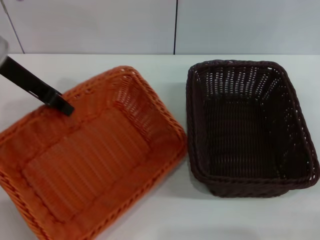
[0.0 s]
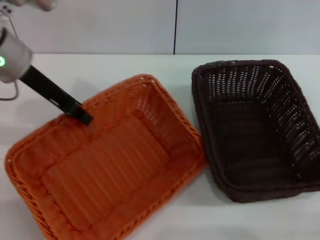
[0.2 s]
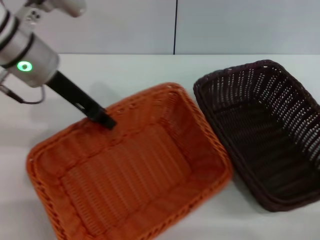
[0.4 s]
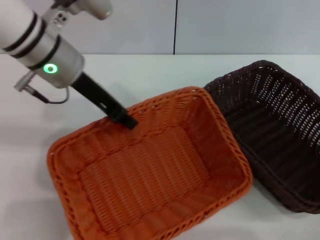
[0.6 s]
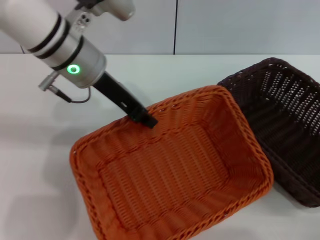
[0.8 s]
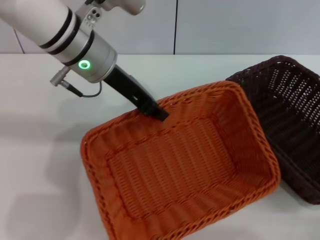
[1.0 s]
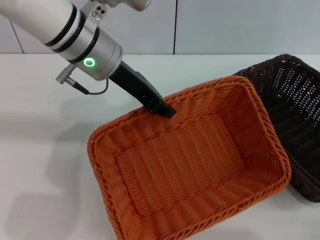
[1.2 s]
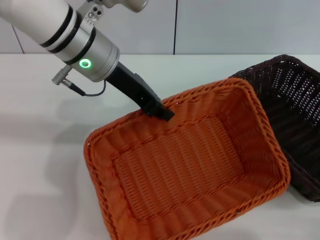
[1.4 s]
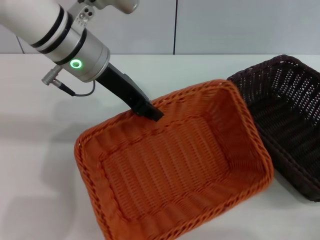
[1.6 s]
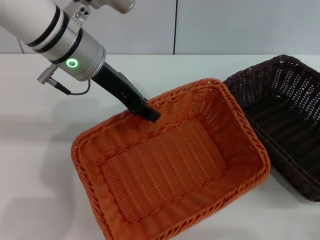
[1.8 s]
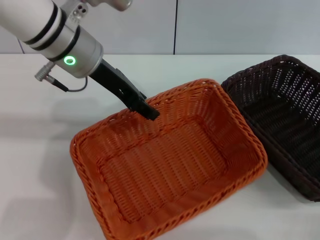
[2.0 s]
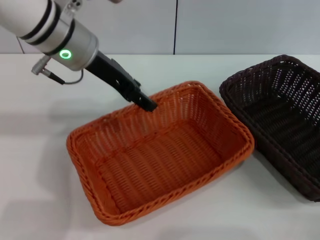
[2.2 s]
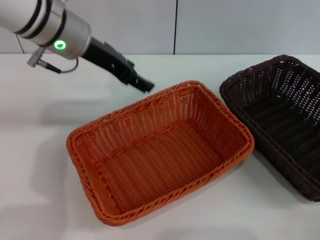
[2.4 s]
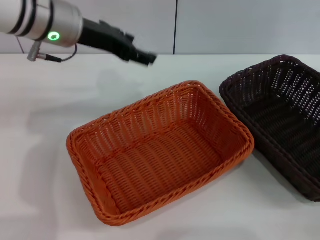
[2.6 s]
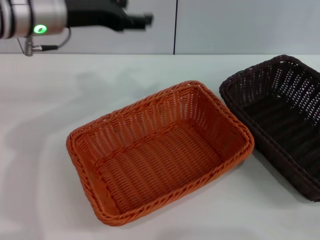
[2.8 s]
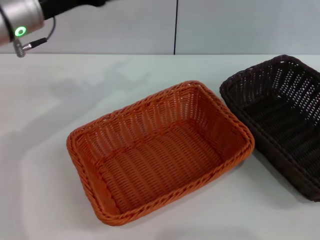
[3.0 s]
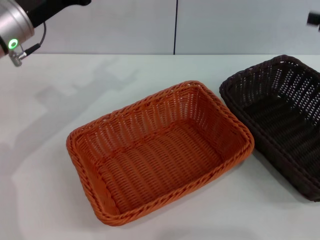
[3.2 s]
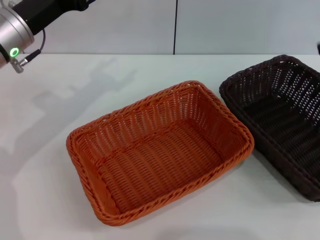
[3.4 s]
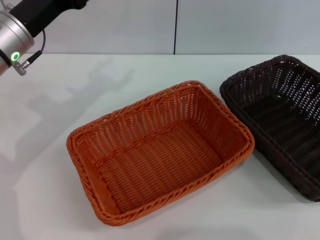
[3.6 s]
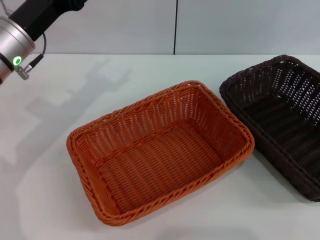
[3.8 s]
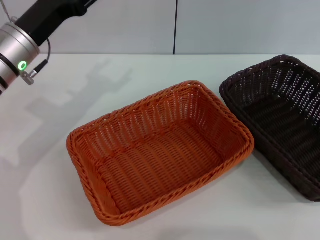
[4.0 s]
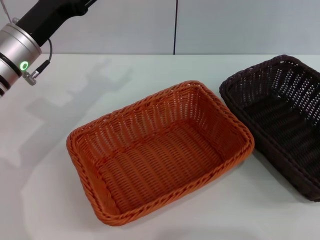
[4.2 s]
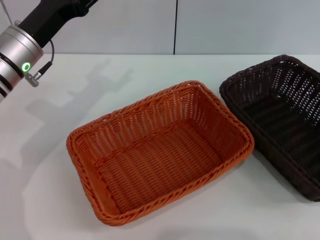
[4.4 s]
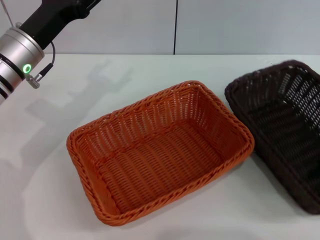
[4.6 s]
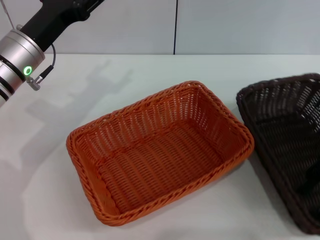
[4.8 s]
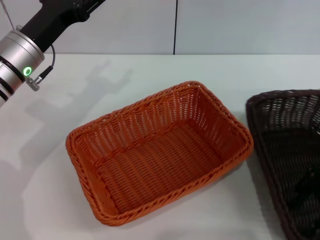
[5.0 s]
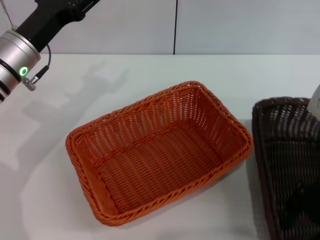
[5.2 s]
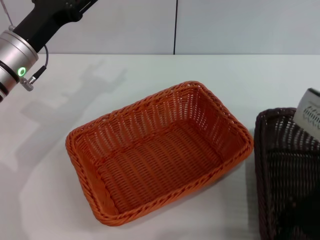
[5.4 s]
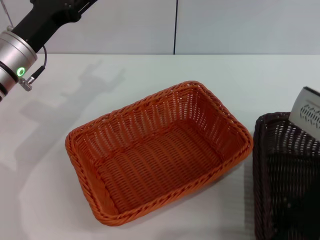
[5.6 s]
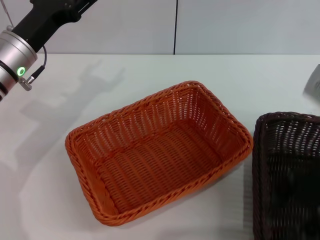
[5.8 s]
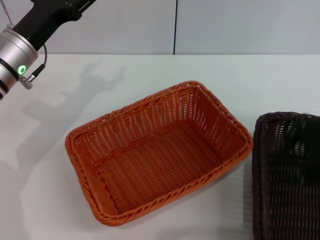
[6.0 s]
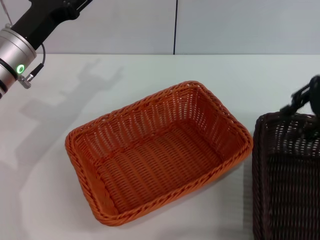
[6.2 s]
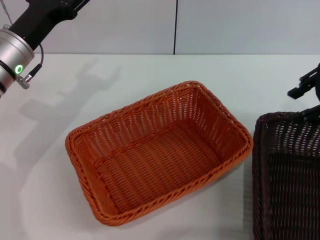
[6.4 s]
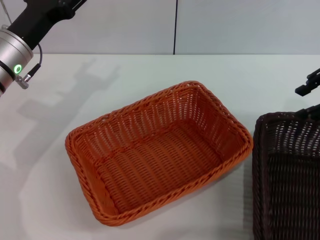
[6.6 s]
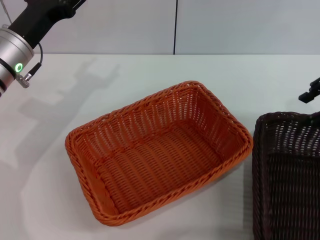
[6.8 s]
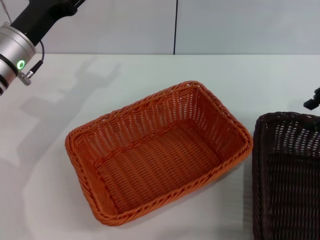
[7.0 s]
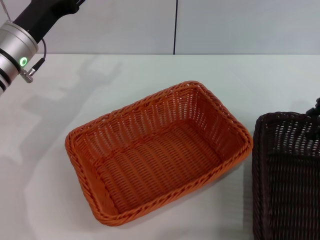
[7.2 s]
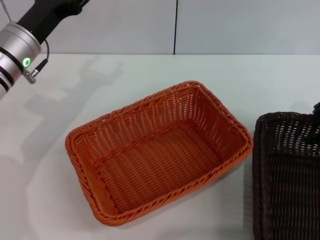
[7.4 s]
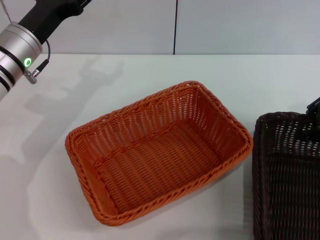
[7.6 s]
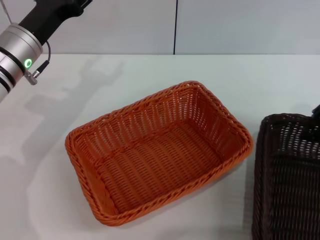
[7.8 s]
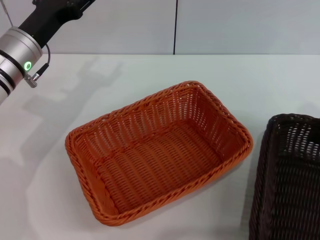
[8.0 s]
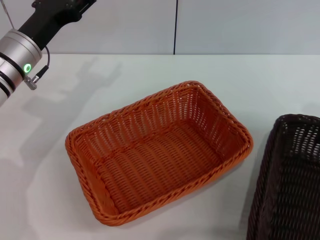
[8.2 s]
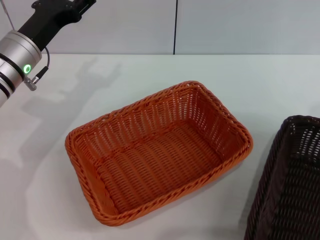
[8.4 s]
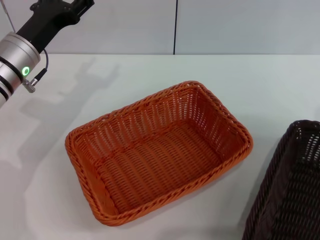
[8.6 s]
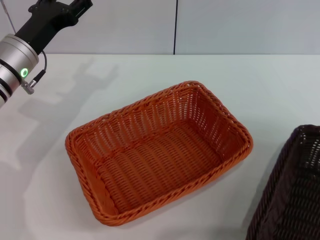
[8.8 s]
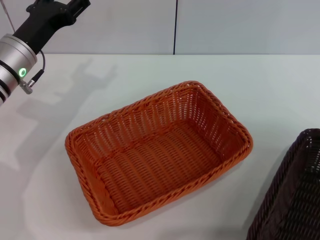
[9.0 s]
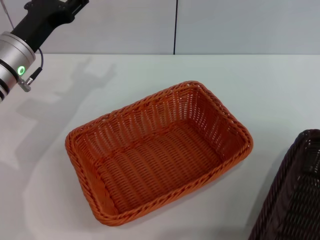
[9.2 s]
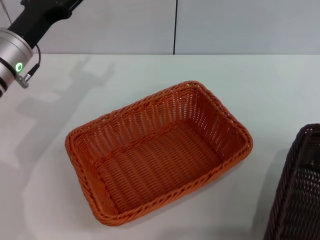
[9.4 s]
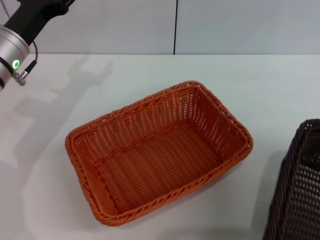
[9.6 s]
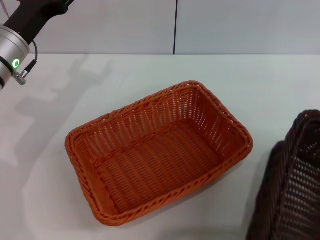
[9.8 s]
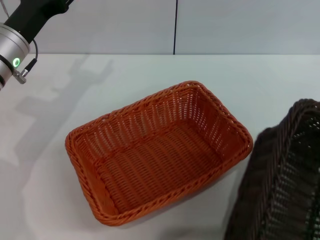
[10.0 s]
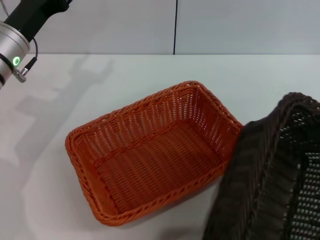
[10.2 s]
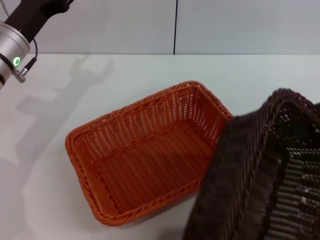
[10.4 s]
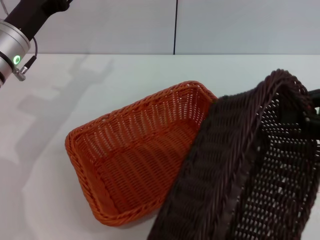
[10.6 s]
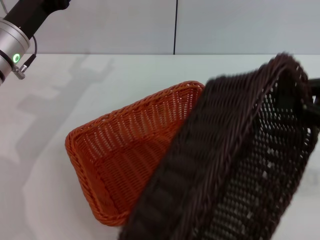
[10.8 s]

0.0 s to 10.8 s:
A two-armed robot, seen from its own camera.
Step, 0.0 to 2.0 s: Place the light basket in the center of view with the left gripper.
Step, 2.4 to 8.0 s: Pick up the dark basket with the right gripper.
0.0 to 1.6 s: The left gripper shifts approximately 15 cm to the right.
1.6 to 3.0 s: The right gripper travels upward by roughly 5 cm, while the left gripper shifts roughly 10 cm to the left, and opens up.
3.0 to 4.6 s: The right gripper heads to the left, covering some 5 cm, and travels upward and back again, some 10 cm each way. Meanwhile the left gripper moves downward, about 5 cm.
4.6 to 6.2 s: The right gripper heads upward, covering roughly 5 cm, and reaches approximately 10 cm to the left, then returns.
6.2 to 7.8 s: The right gripper heads downward, covering approximately 5 cm, and closes its fingers.
7.8 to 9.2 s: The right gripper is displaced to the right by some 5 cm, and closes up.
9.2 to 10.8 s: The right gripper moves to the left, roughly 5 cm.

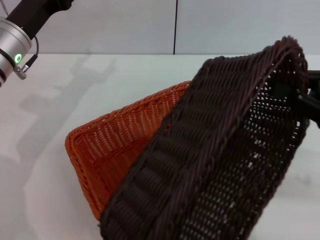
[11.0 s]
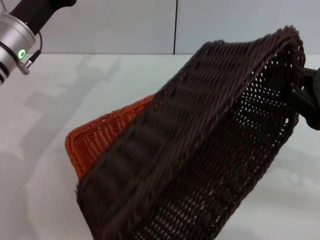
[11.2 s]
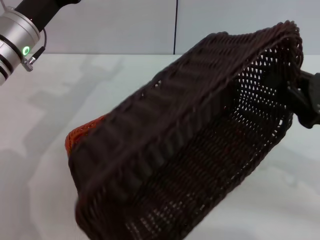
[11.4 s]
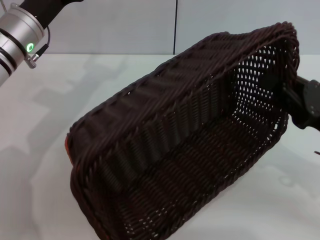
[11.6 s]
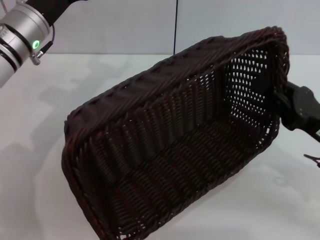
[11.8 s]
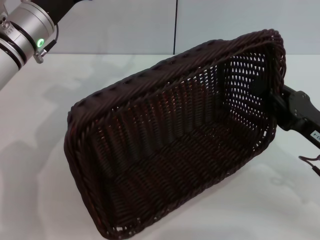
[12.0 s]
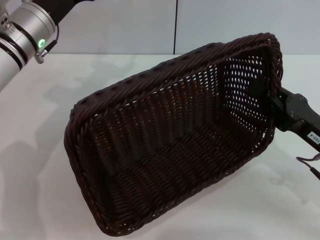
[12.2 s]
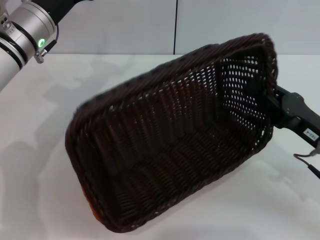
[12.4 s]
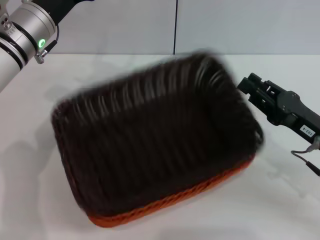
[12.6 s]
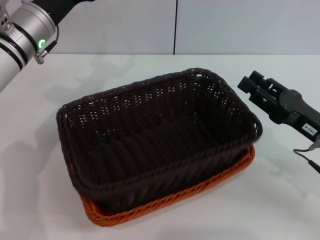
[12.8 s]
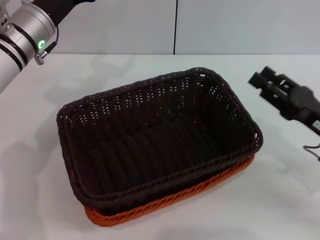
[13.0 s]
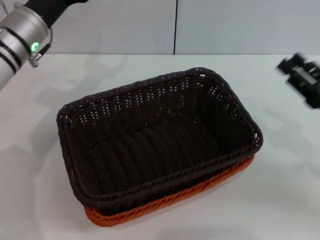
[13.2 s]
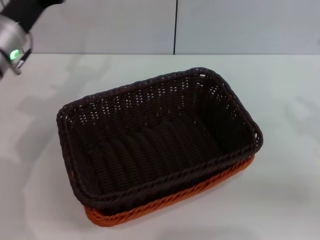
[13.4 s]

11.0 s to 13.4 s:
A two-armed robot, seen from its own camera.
11.0 to 12.2 s: The right gripper is displaced downward by about 5 cm.
12.2 to 13.4 s: The right gripper travels to the right by some 5 cm, and opens up.

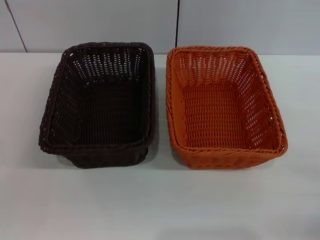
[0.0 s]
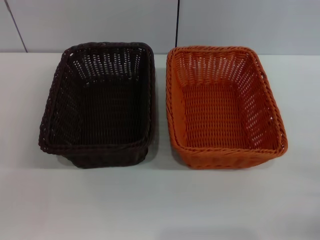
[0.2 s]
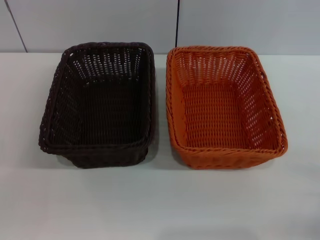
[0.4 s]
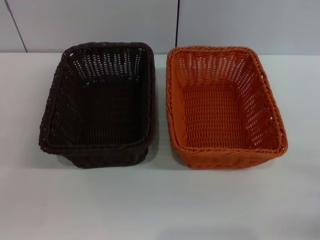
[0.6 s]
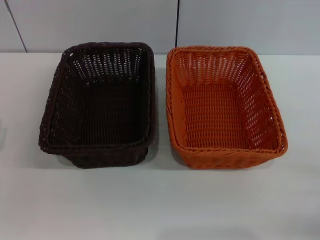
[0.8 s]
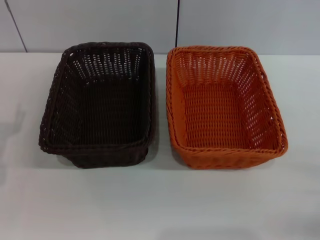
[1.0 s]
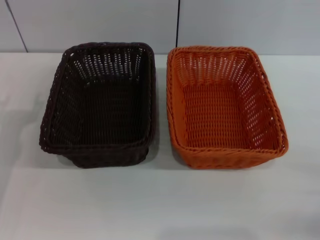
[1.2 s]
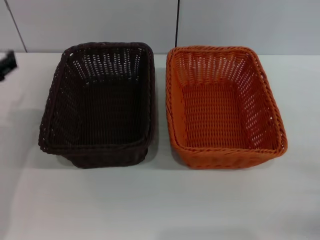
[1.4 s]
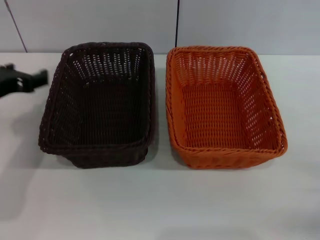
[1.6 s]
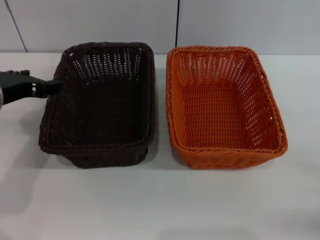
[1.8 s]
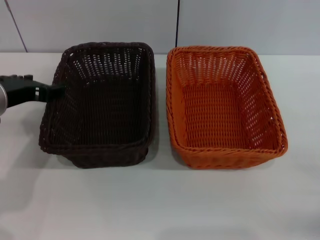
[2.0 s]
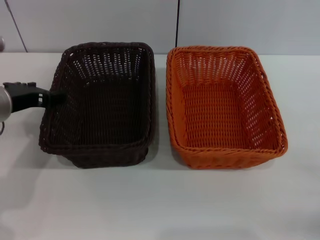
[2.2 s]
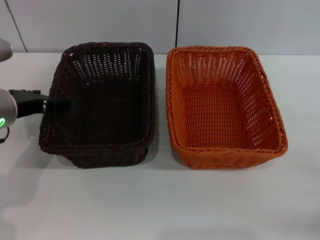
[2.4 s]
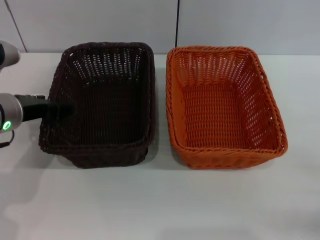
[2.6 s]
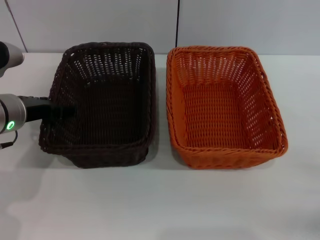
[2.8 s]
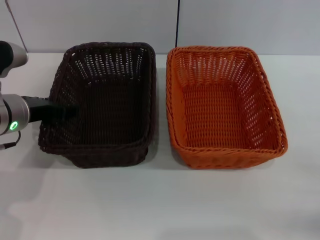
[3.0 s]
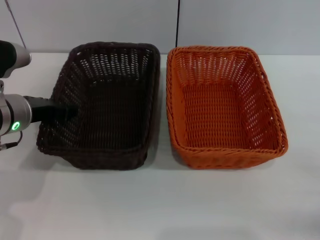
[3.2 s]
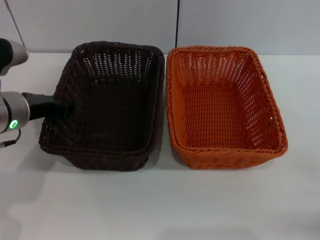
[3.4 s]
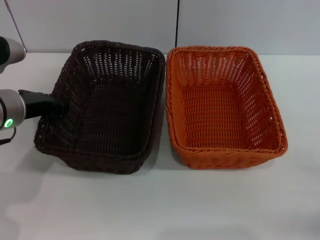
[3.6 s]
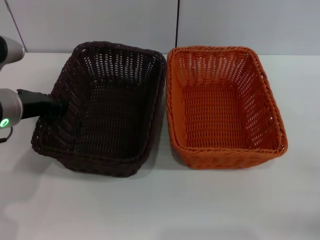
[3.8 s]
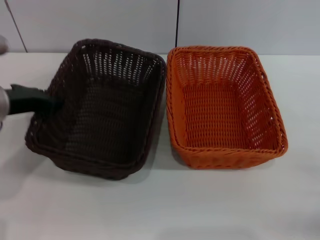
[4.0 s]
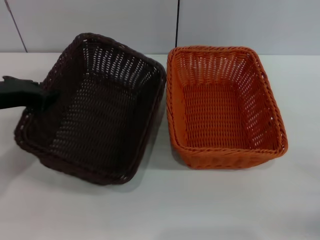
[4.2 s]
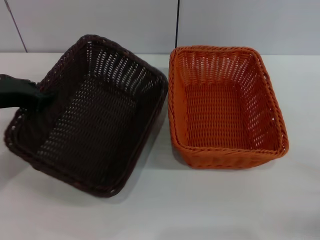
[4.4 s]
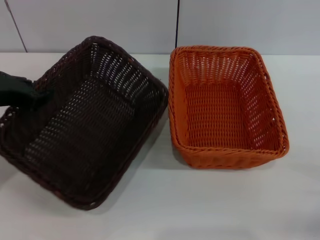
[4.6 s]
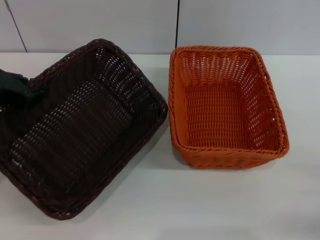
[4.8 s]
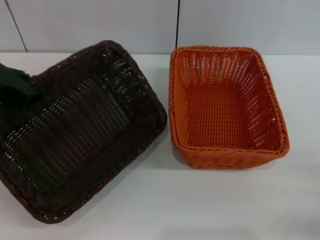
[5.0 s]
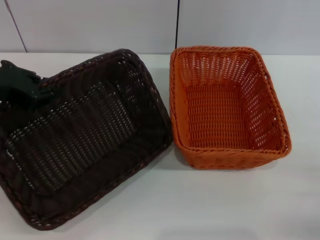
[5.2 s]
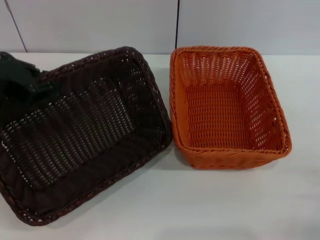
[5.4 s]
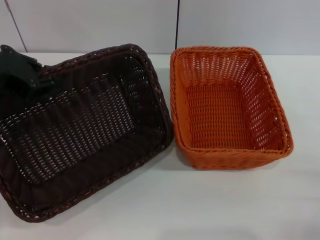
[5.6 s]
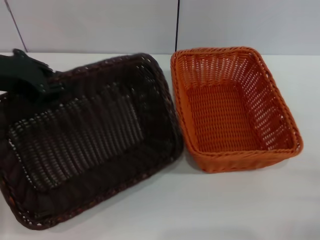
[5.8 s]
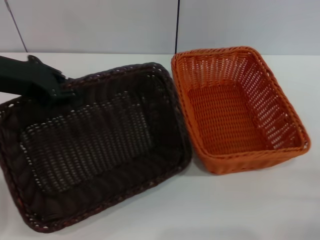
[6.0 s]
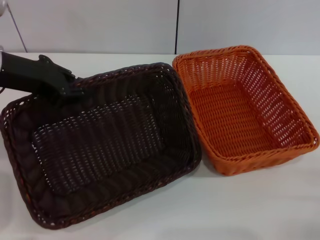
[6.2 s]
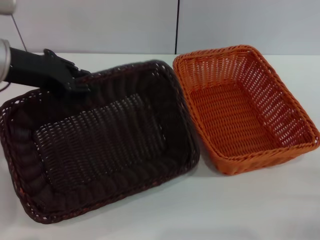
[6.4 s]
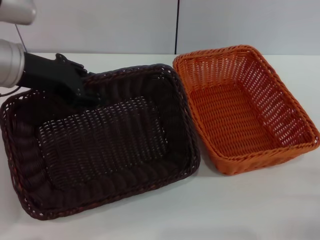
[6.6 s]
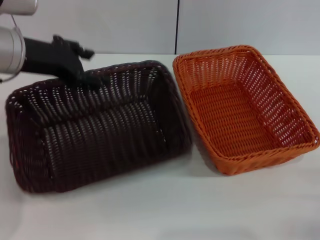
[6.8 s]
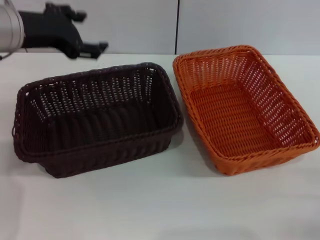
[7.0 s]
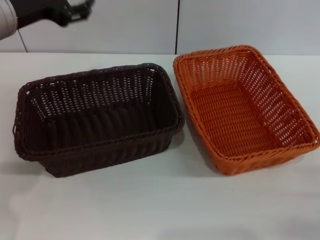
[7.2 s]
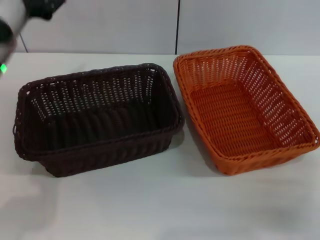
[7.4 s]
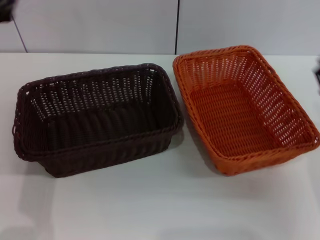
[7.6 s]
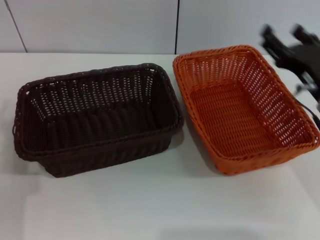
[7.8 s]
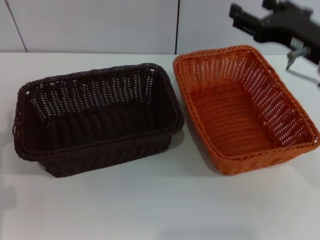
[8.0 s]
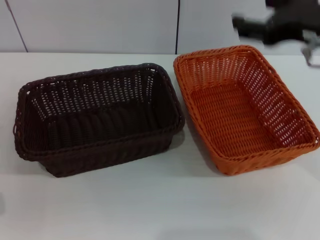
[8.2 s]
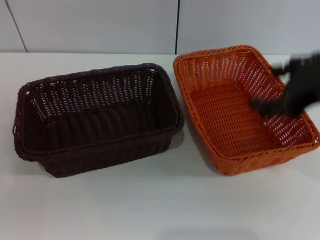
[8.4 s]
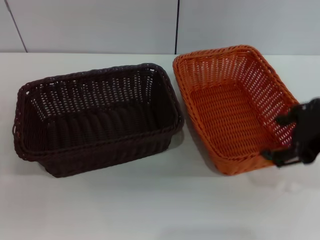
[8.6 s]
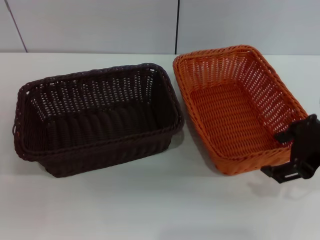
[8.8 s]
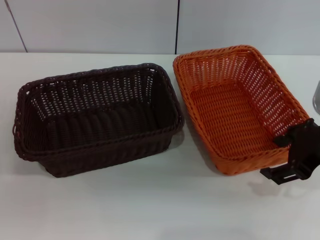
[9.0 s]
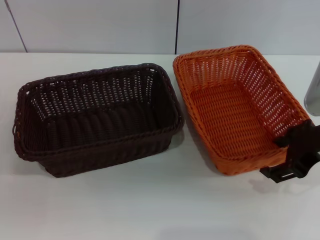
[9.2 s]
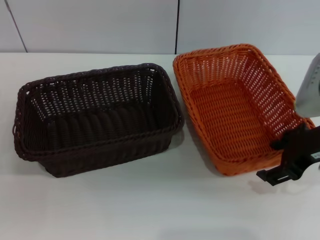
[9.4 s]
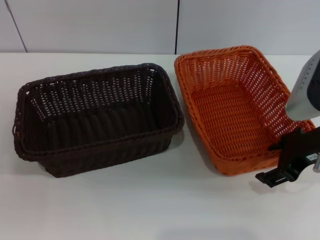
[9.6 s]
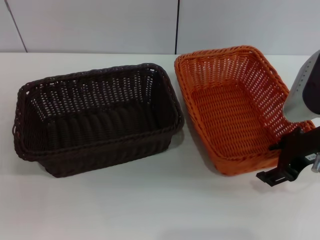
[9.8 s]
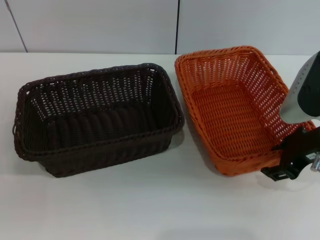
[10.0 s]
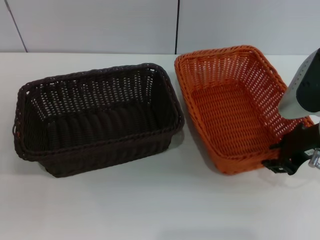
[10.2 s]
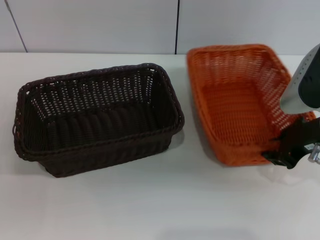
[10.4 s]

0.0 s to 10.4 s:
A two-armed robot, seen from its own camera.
Step, 0.0 to 3.8 s: Pick up the dark basket with the left gripper.
Step, 4.0 to 6.8 s: Place the dark basket in the center of view with the left gripper.
0.0 to 1.4 s: The left gripper goes approximately 15 cm upward and forward.
1.4 to 3.0 s: The left gripper heads to the right and forward, covering roughly 10 cm.
3.0 to 4.4 s: The left gripper heads upward, covering roughly 5 cm, and closes up.
4.4 to 6.0 s: The left gripper is displaced upward by some 5 cm.
6.0 to 7.4 s: The left gripper changes place by roughly 5 cm, and opens up; the right gripper ends up approximately 5 cm from where it was.
7.4 to 9.0 s: The left gripper shifts approximately 25 cm downward, to the left and backward, while the right gripper travels upward by about 15 cm.
9.0 to 10.4 s: The right gripper closes its fingers.
